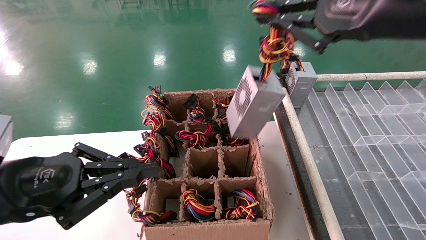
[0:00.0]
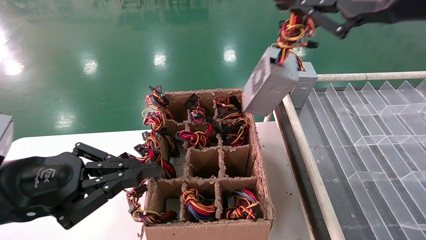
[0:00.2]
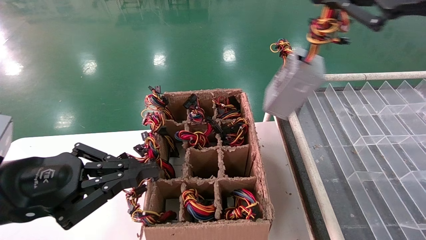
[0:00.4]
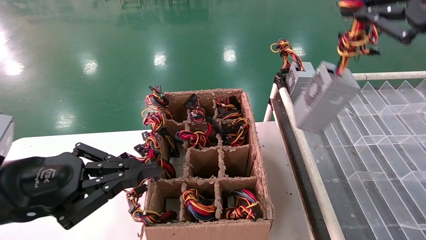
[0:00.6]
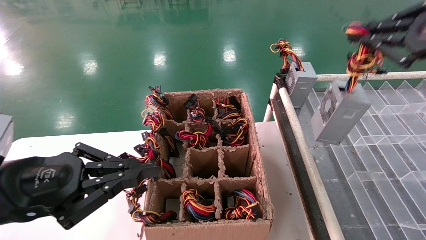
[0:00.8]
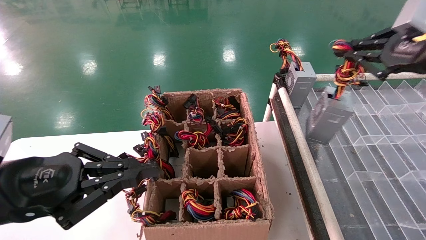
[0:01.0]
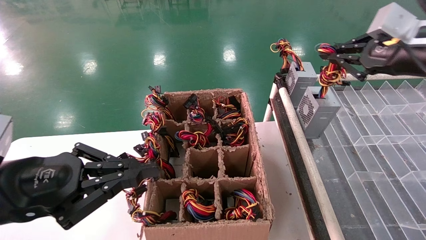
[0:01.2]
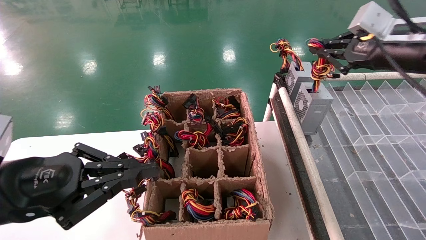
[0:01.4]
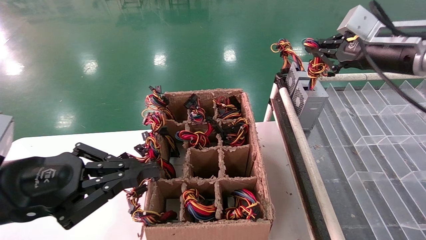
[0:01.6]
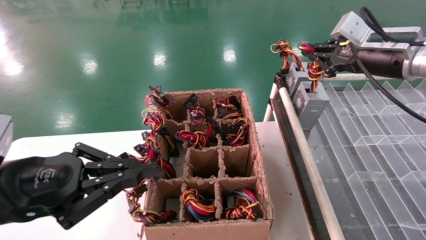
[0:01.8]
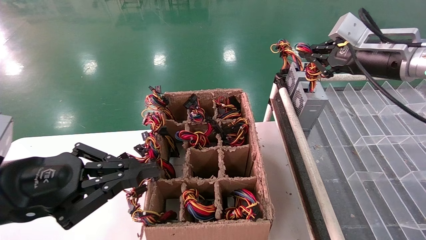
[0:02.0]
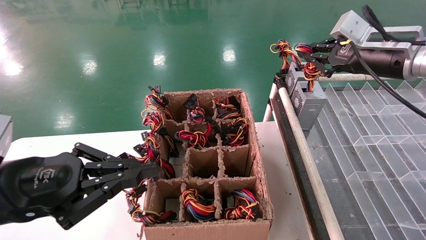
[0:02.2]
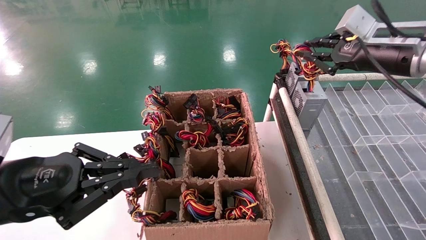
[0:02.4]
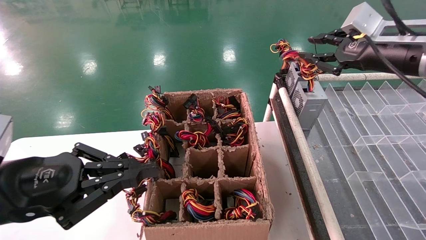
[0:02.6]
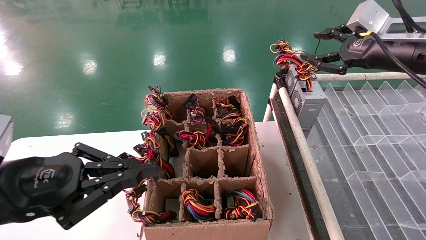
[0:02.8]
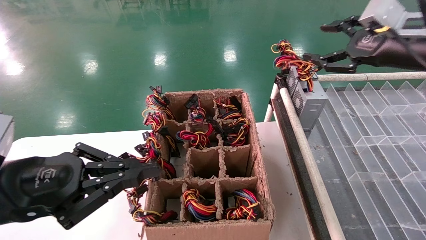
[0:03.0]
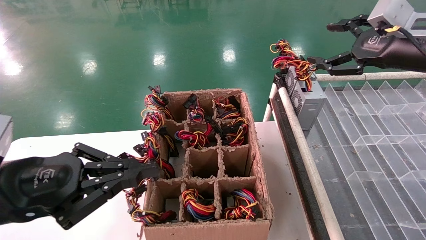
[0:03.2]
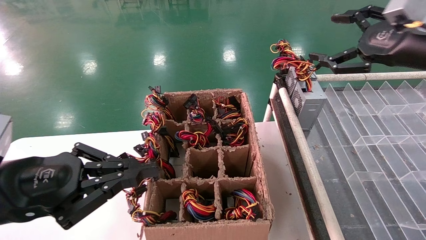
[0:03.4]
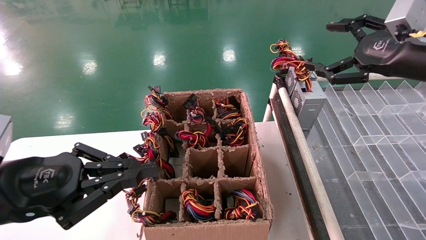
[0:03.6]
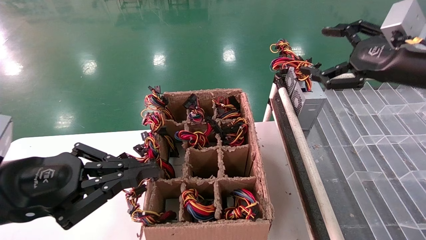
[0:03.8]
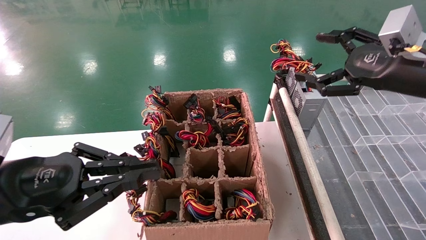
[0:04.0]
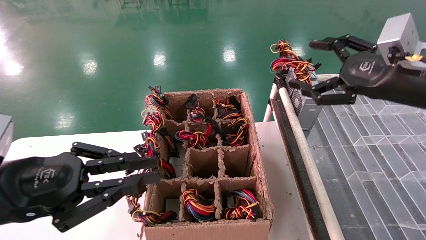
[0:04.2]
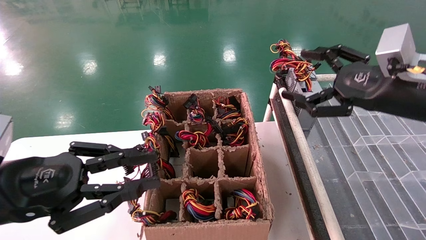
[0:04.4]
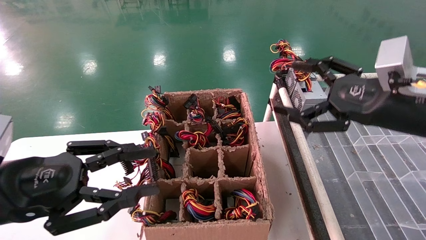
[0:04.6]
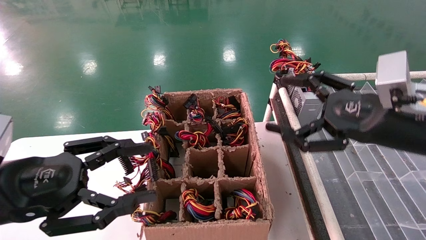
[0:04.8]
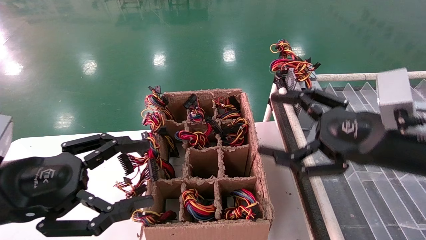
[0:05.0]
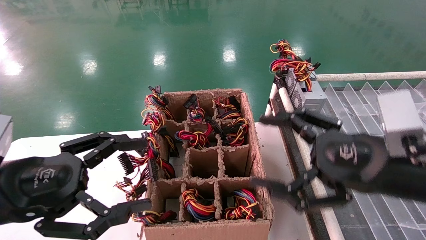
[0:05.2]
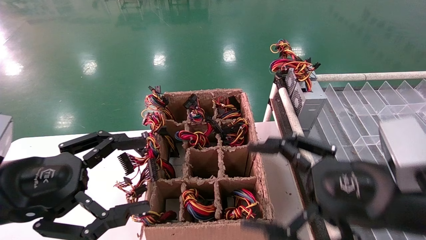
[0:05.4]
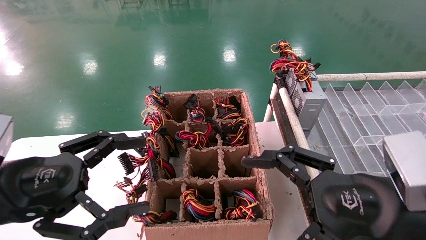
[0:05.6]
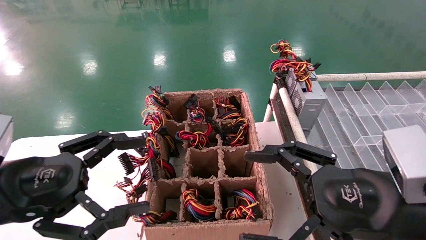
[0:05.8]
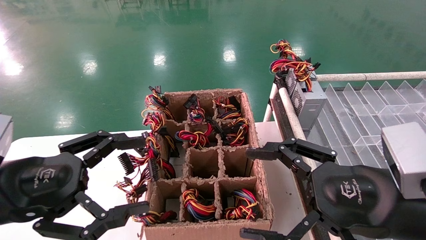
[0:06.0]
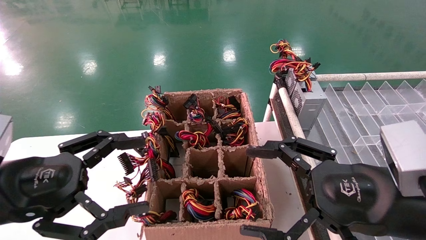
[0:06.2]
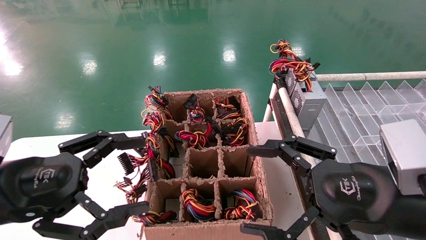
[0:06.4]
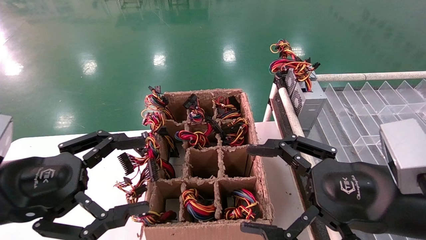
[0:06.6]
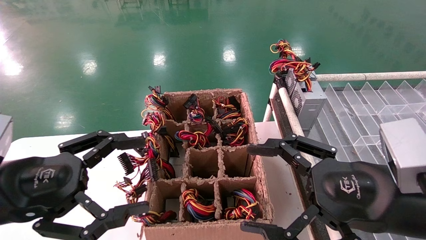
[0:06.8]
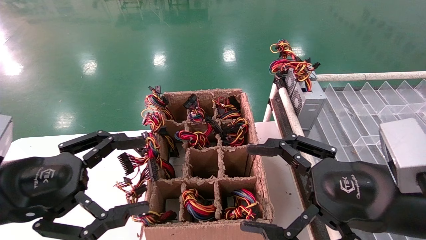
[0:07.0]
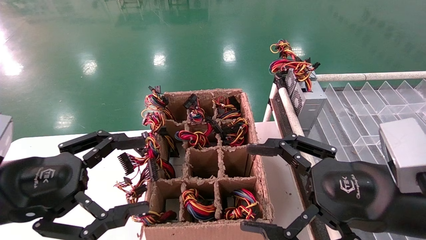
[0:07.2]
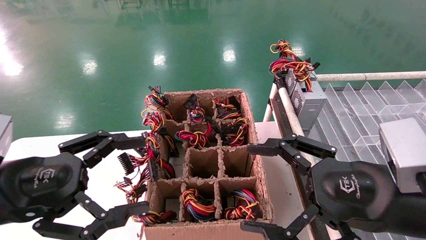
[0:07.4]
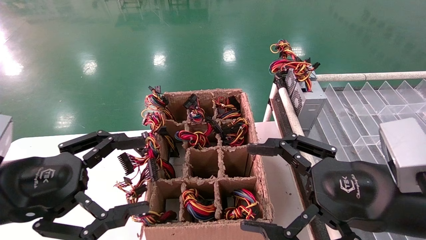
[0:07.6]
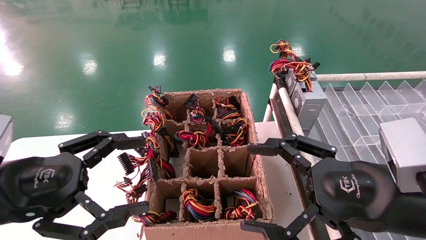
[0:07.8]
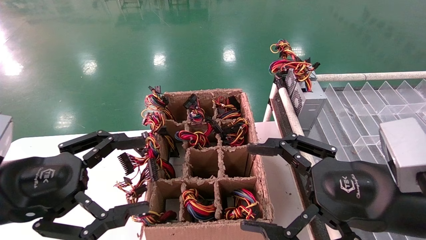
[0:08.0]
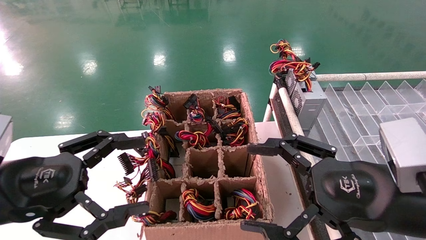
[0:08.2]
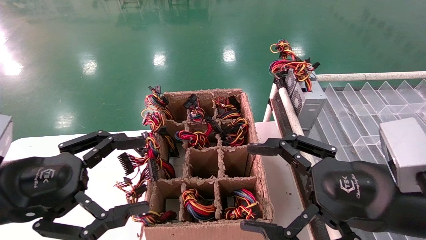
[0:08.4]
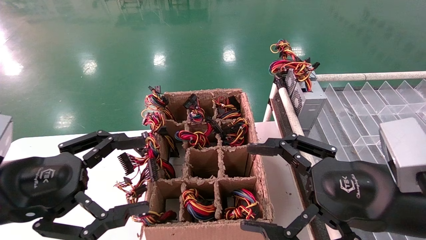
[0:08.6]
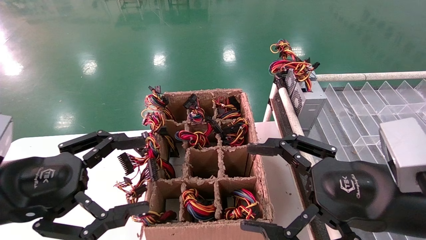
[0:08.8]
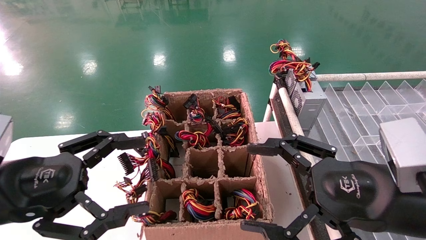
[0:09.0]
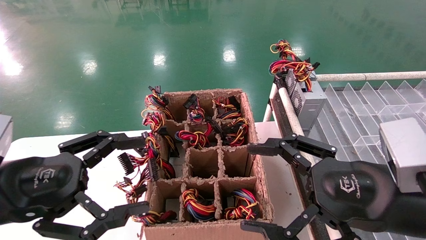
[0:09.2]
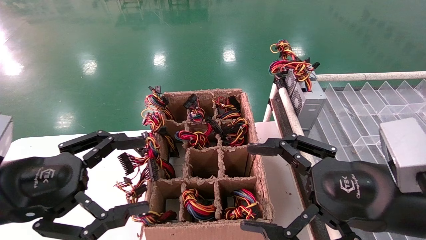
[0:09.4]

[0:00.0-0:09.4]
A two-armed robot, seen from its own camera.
Step, 0:00.0 to 0:02.6: Place the main unit power supply in the designated area.
0:00.0 to 0:01.6: The right gripper moves forward and to the right, some 20 cm.
0:01.6 to 0:03.2: The right gripper opens.
0:03.2 to 0:04.8: The right gripper shifts approximately 15 cm downward, backward and to the left, while the left gripper opens up.
0:04.8 to 0:06.2: The left gripper opens, while the right gripper heads backward and downward, covering about 10 cm.
0:06.2 to 0:09.4: Both grippers stay put.
